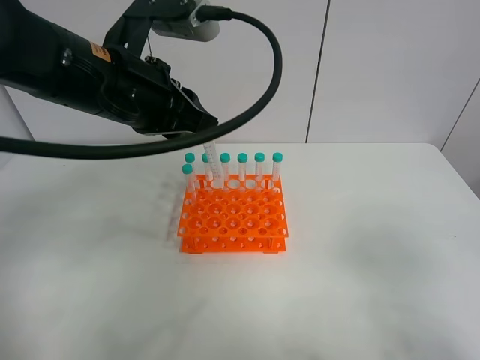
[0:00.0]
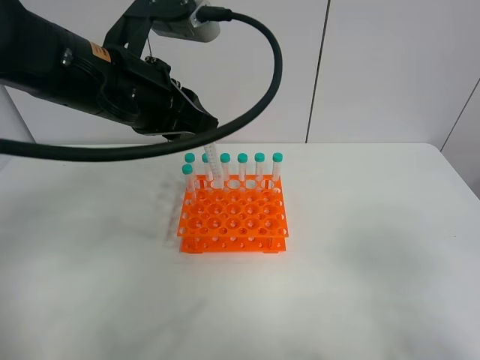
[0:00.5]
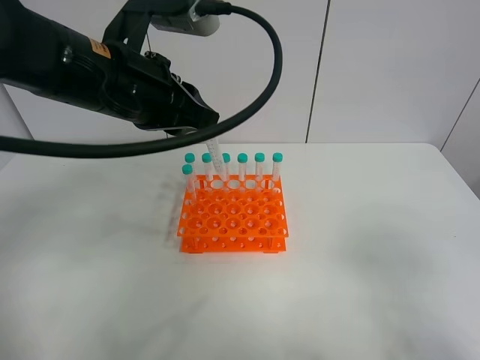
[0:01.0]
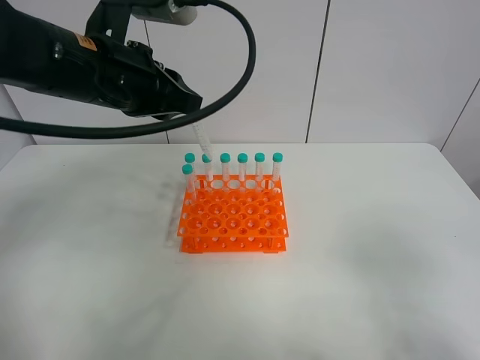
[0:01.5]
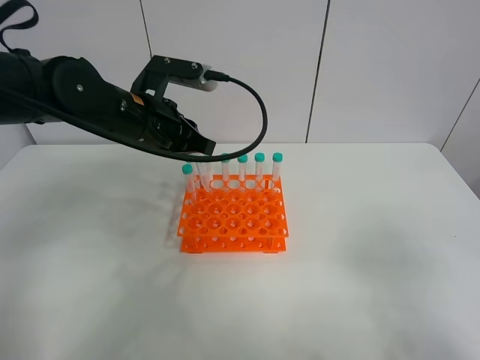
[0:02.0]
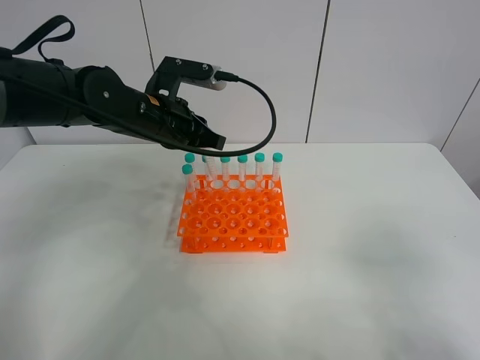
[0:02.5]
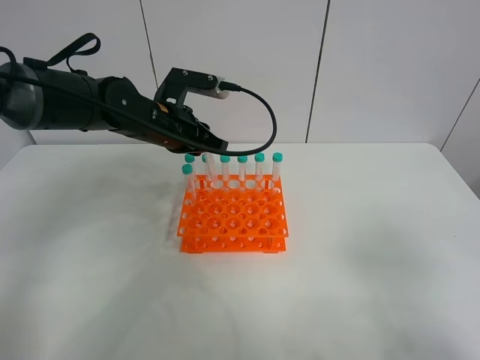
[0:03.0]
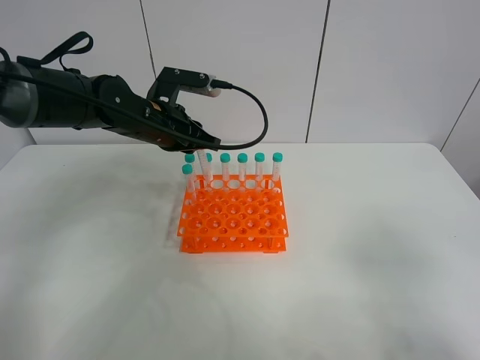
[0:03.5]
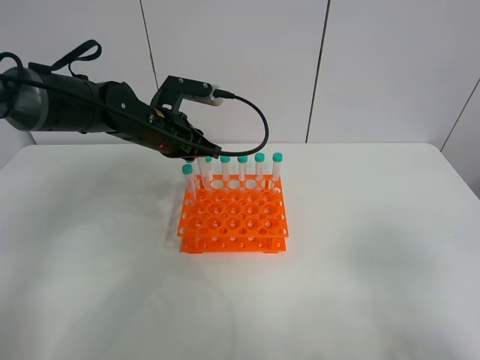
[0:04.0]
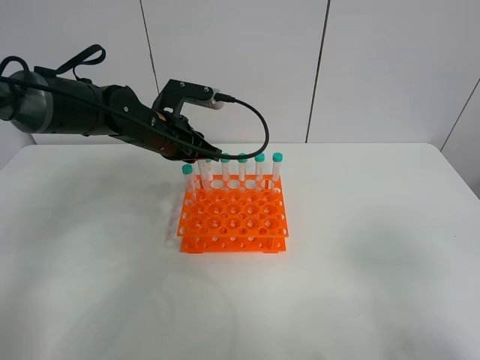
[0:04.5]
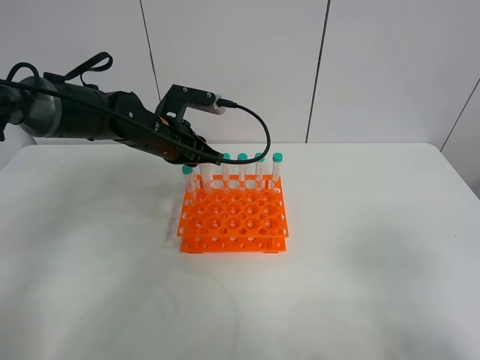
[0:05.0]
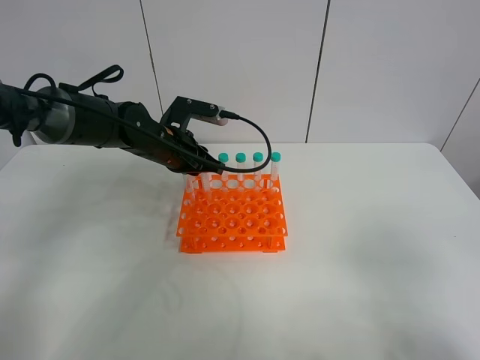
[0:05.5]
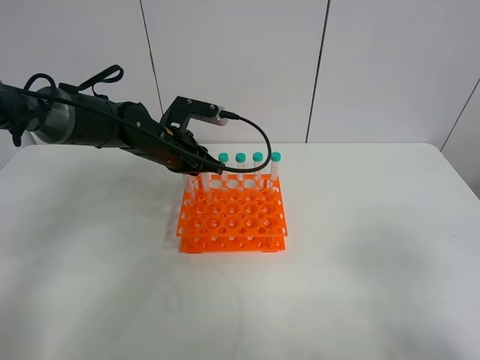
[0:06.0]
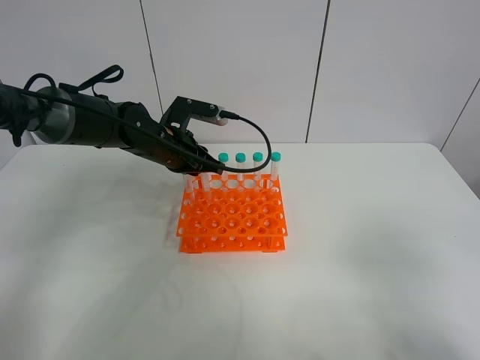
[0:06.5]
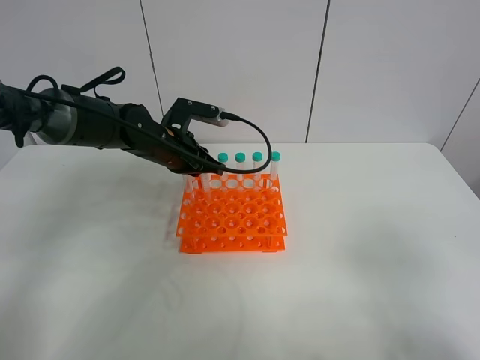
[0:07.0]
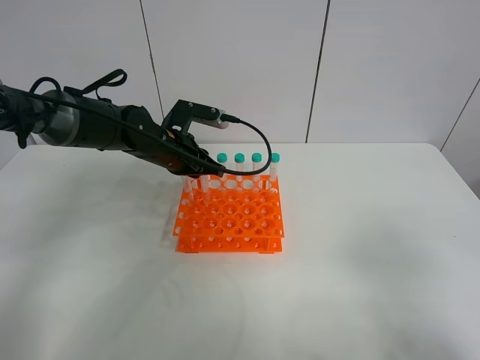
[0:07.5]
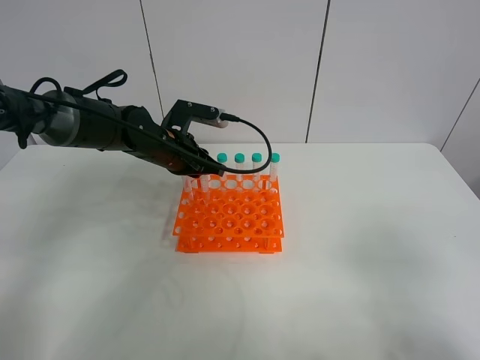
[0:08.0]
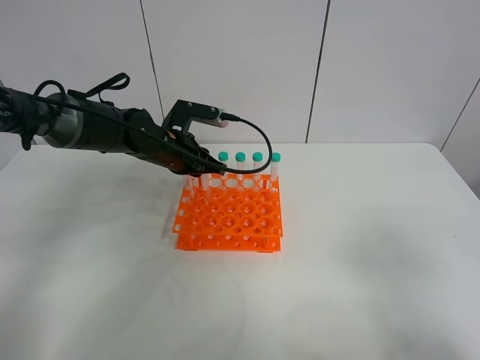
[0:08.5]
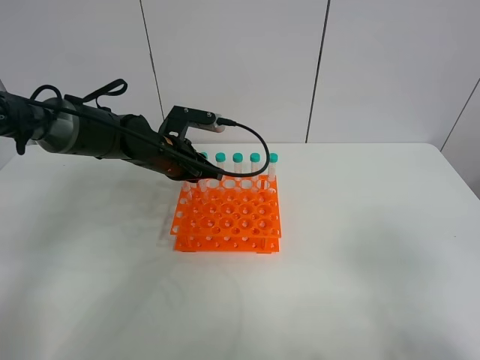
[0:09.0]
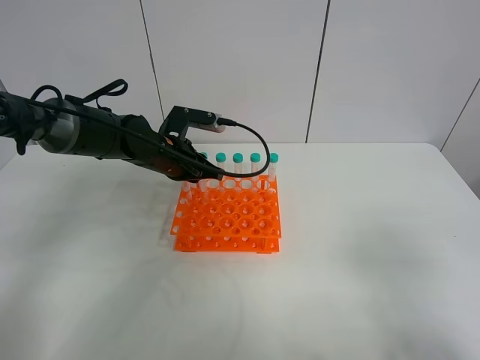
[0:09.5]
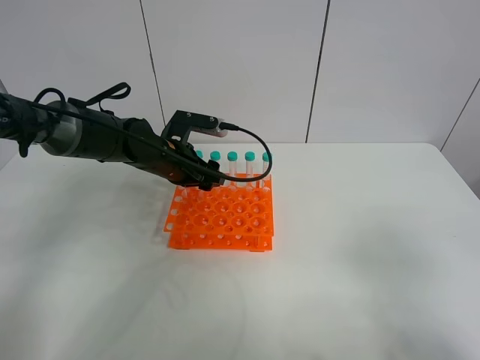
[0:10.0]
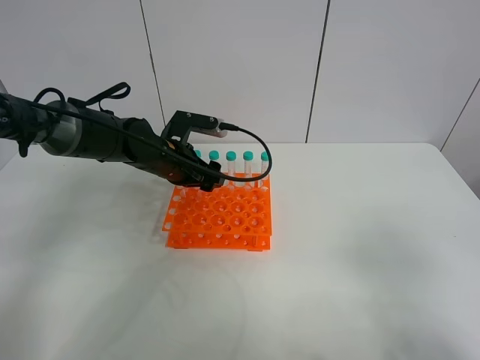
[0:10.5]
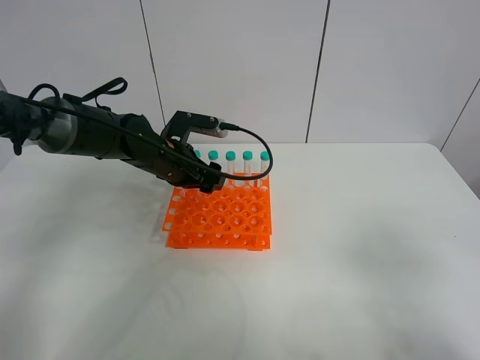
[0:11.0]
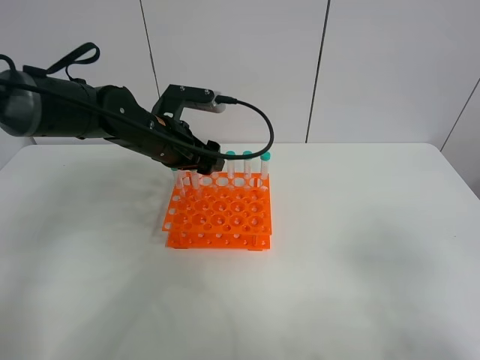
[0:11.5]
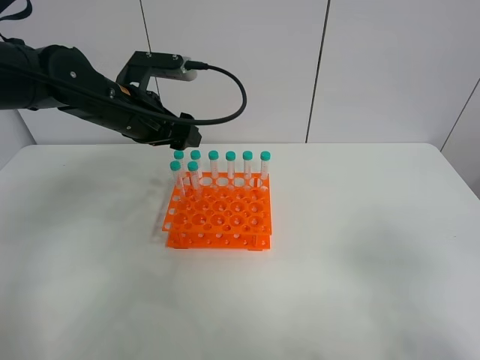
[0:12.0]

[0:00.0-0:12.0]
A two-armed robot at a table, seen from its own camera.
Task of the whole recording: Put the test tube on the table back onto the test tube rack.
Step, 0:00.0 to 0:10.0: Place the test tube on the test tube rack with the left gripper.
0:00.0 to 0:02.0: The left gripper travels downward and forward by some 10 cm.
0:02.0 to 0:04.0: The left gripper travels forward by some 5 cm.
0:04.0 to 0:06.0: The grippers move only a little.
0:06.0 to 0:08.0: Neither gripper changes place.
0:08.0 to 0:10.0: The left gripper opens up.
0:10.0 to 0:12.0: The left gripper is displaced upward by roughly 10 cm.

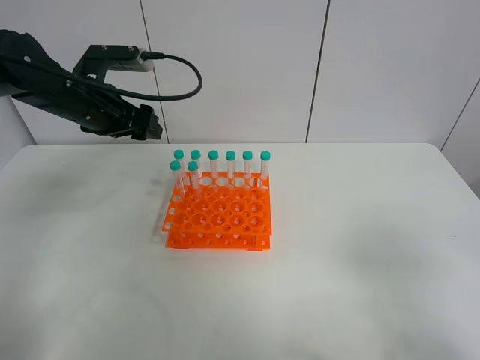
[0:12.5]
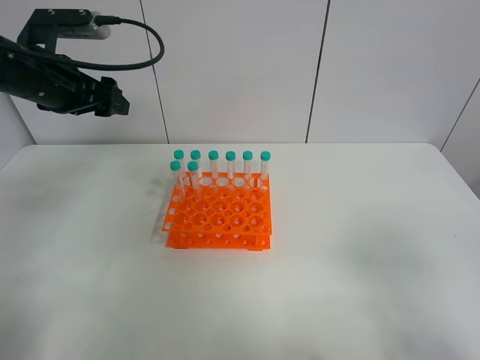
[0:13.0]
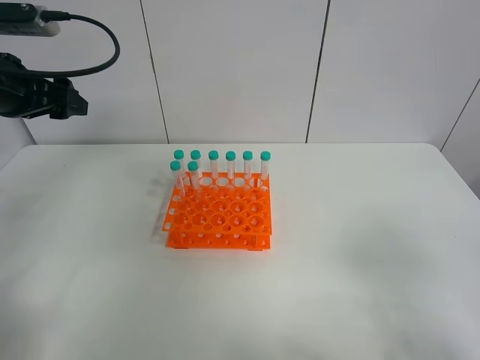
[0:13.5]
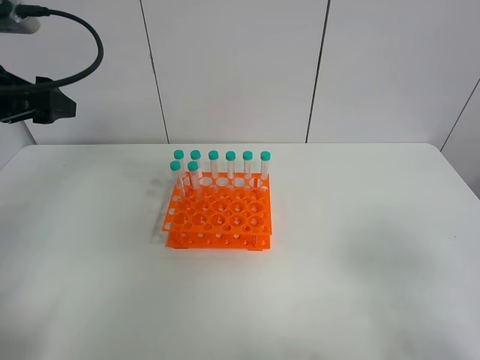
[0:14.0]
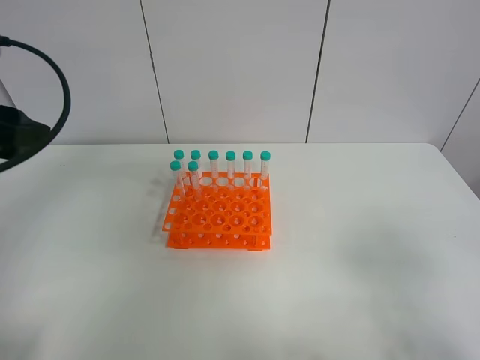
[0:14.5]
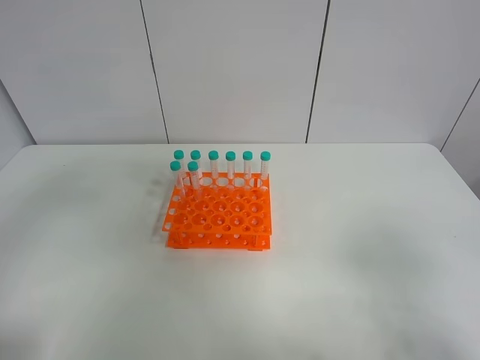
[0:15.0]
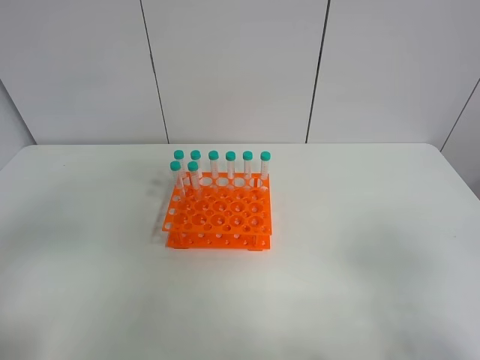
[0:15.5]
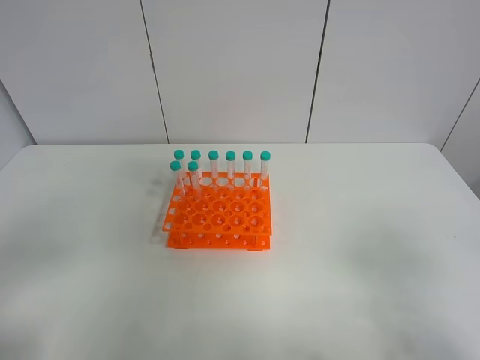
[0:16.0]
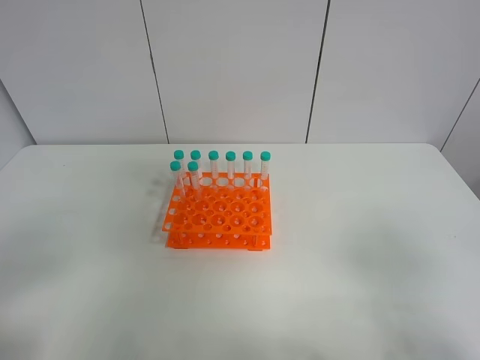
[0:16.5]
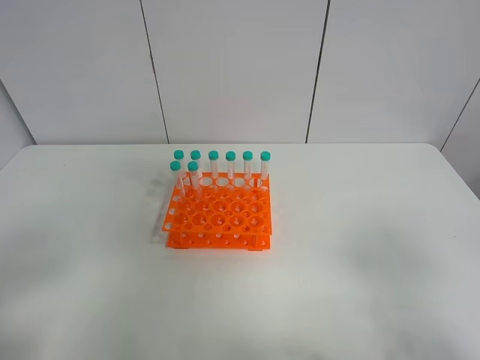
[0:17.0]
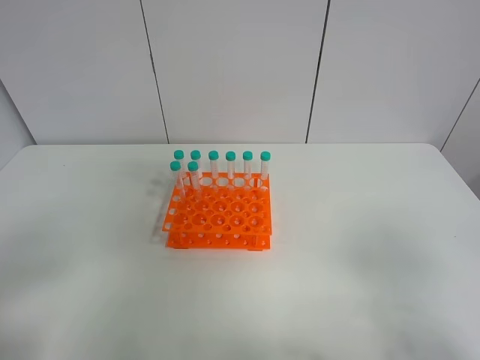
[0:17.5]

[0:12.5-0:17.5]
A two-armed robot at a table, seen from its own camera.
Task of the whole recording: Put the test tube on the table back onto the test tube rack.
0:12.5 to 0:15.0: The left gripper goes roughly 25 cm backward.

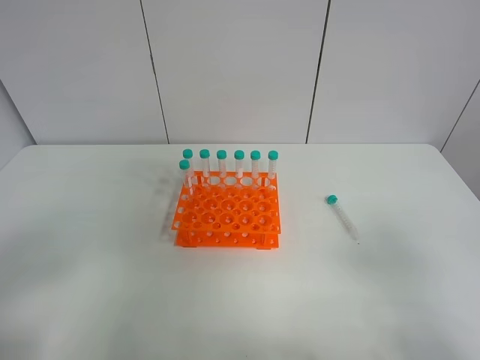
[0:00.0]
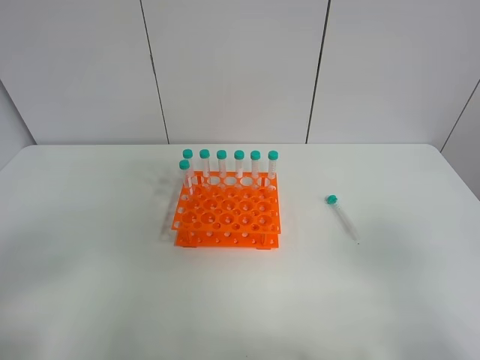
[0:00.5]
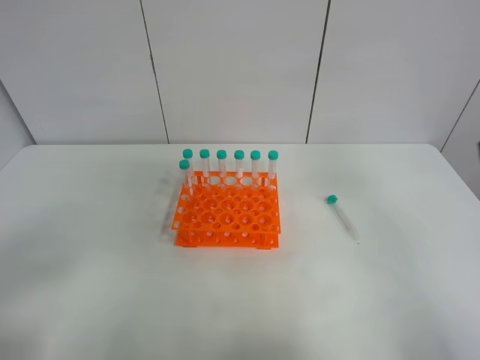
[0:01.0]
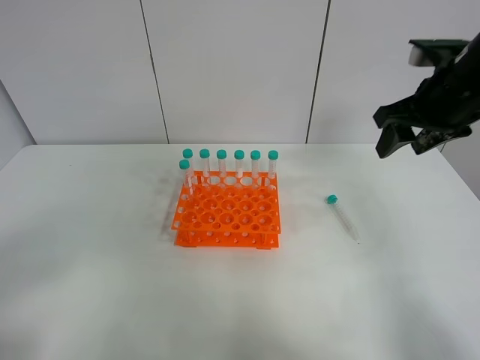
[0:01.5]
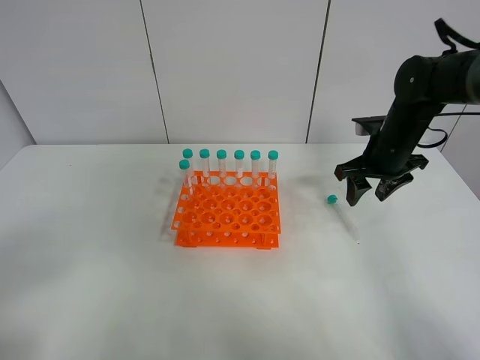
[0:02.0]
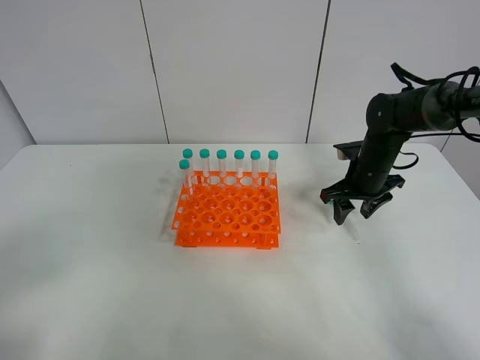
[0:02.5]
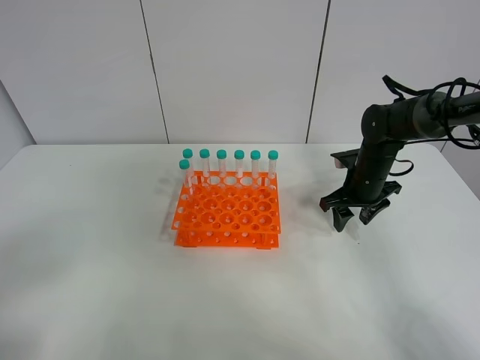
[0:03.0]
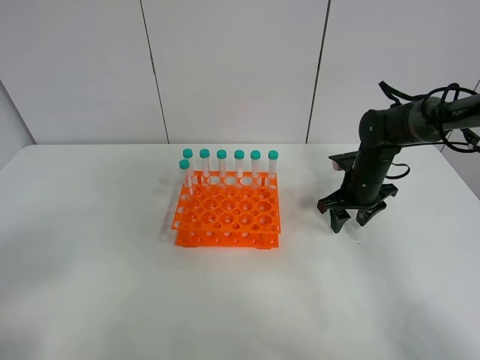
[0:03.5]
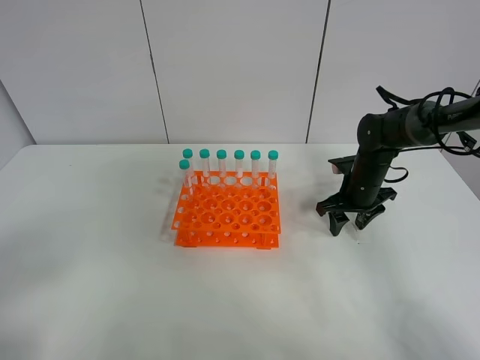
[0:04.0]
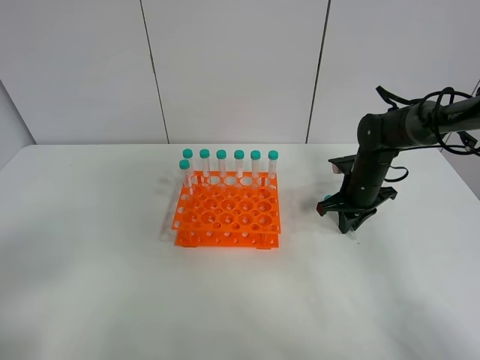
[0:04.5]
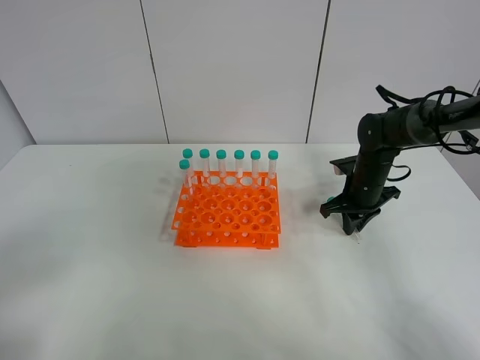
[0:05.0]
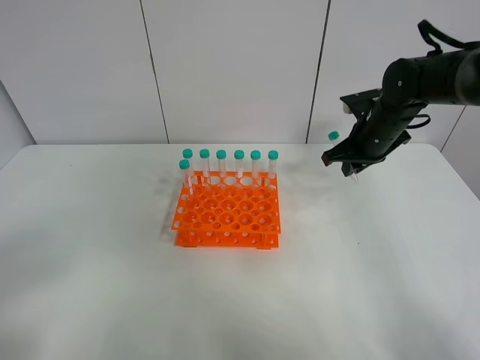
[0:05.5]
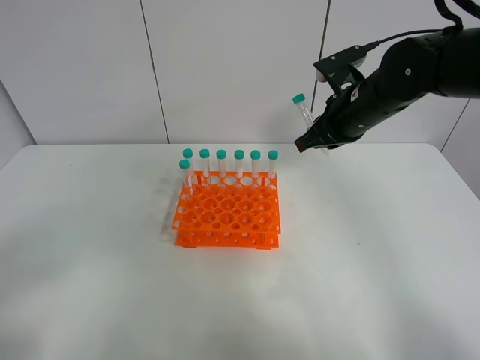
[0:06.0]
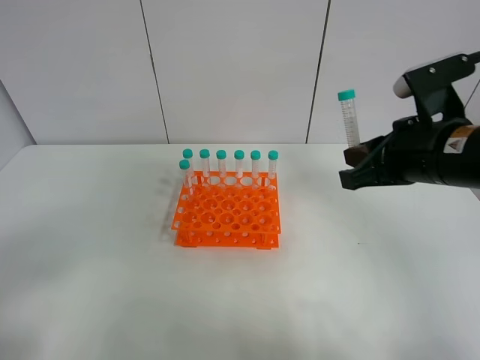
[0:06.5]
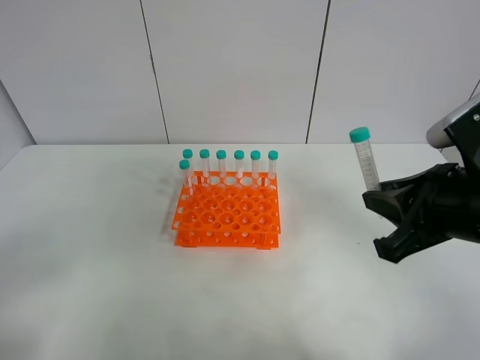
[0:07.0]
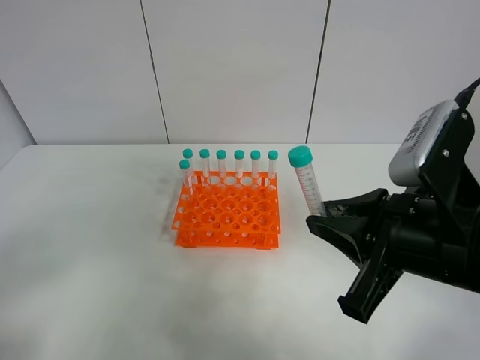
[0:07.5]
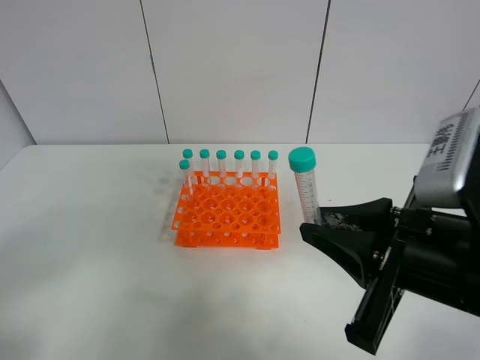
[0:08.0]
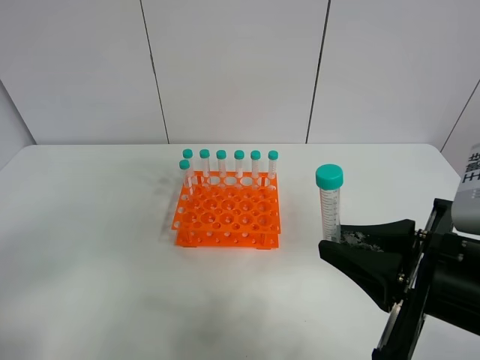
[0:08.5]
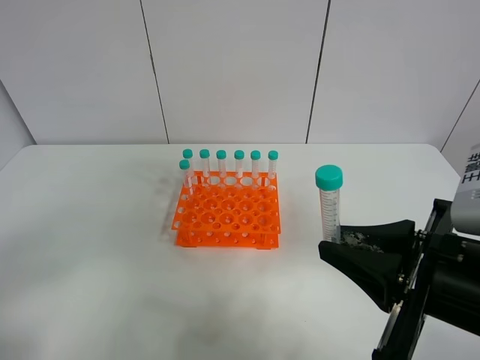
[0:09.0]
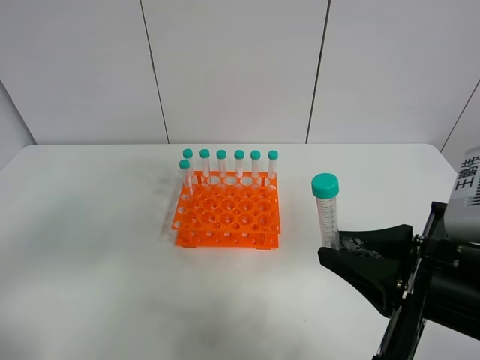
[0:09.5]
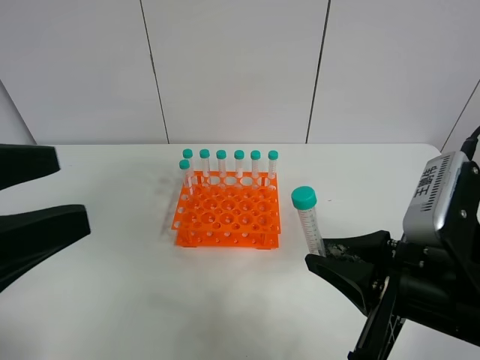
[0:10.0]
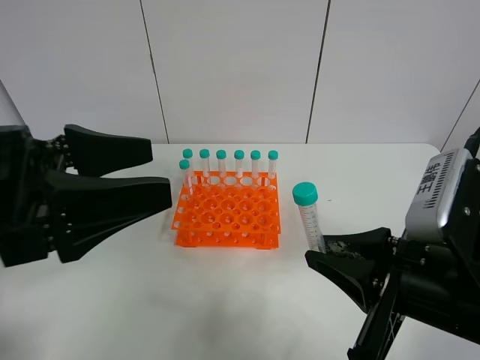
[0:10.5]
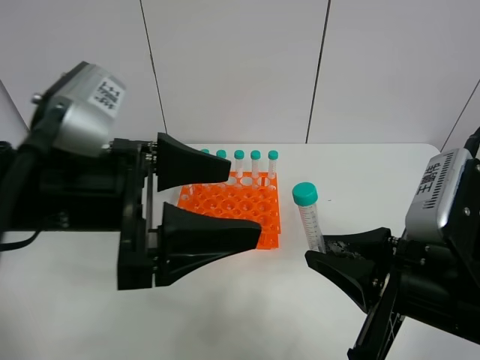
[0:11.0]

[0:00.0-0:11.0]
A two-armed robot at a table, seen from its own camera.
Task of the whole recording: Put the test tube on the table back onto the test tube rack.
Step, 0:00.0 to 0:05.5: Pick up the test tube with the right gripper.
0:00.0 to 0:02.0: The right gripper heads forward, covering roughly 40 cm.
0:02.0 to 0:03.5: The right gripper shifts some 10 cm downward.
0:03.5 to 0:05.5: The right gripper goes about 10 cm upward, and closes up.
0:05.5 to 0:07.5: The right gripper goes about 30 cm backward.
0:07.5 to 0:09.0: There are only small adjustments of the grippers.
0:09.0 to 0:11.0: The left gripper is displaced to the right and forward by about 25 cm.
